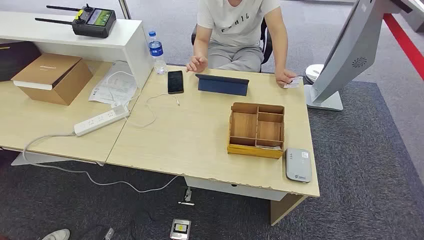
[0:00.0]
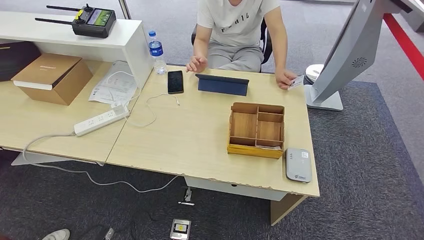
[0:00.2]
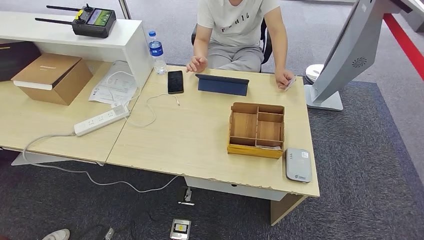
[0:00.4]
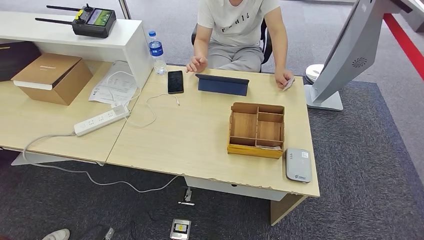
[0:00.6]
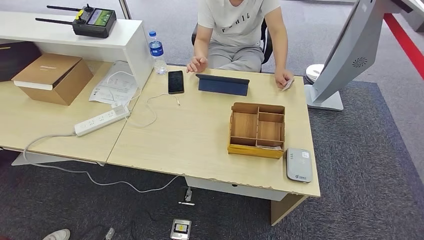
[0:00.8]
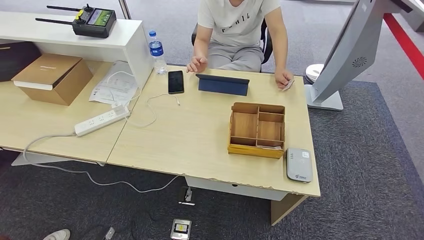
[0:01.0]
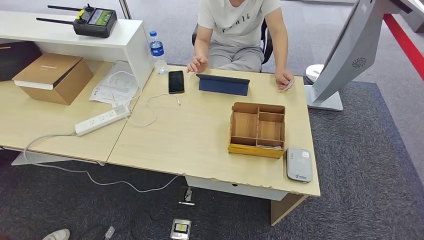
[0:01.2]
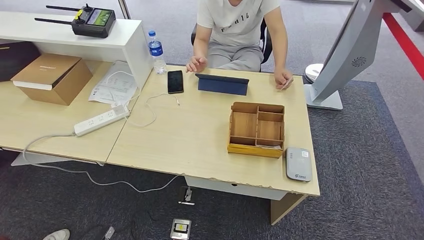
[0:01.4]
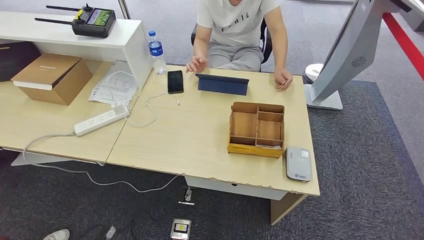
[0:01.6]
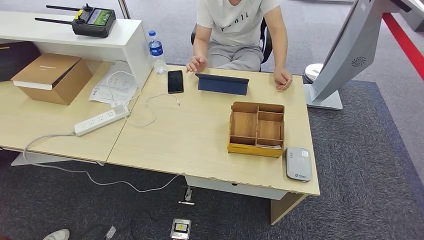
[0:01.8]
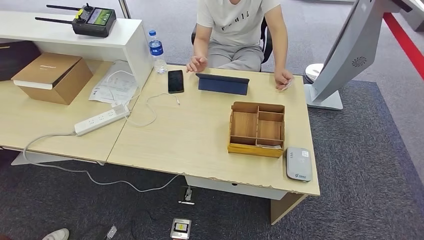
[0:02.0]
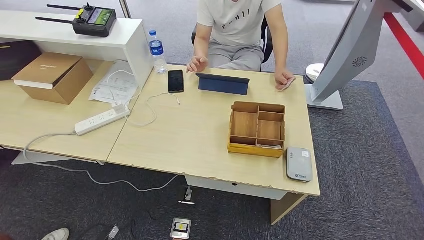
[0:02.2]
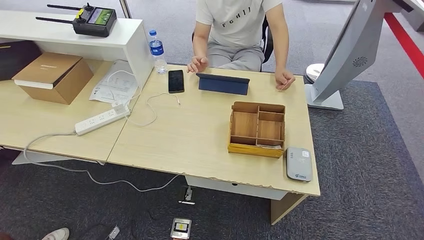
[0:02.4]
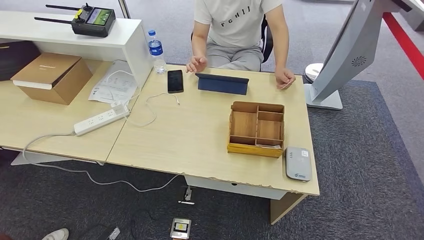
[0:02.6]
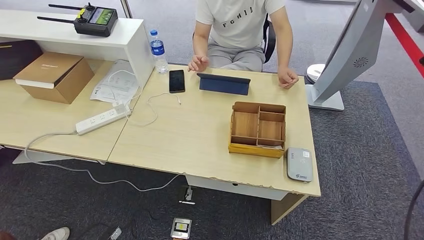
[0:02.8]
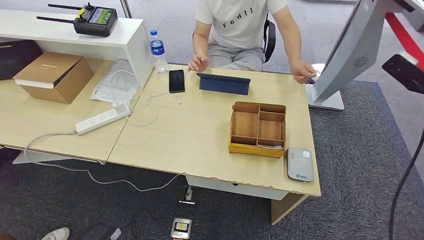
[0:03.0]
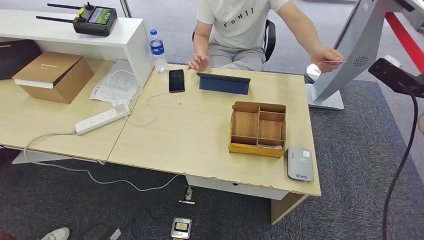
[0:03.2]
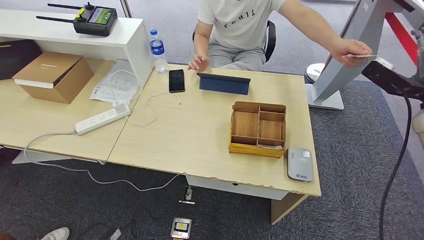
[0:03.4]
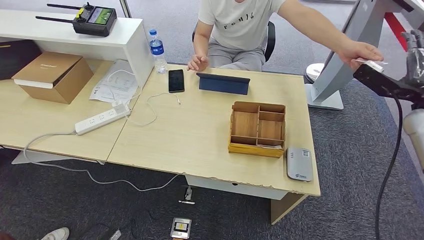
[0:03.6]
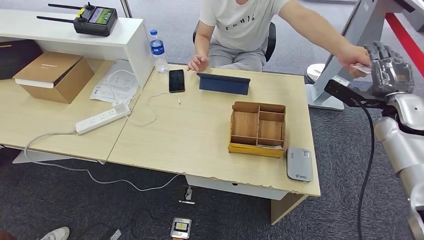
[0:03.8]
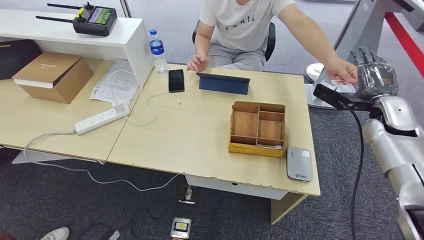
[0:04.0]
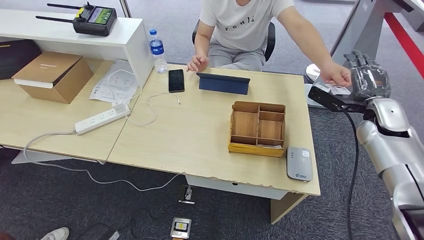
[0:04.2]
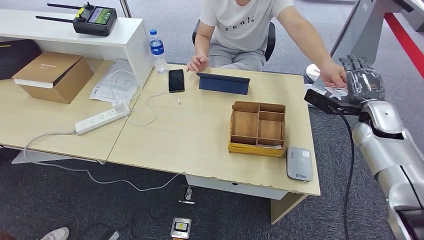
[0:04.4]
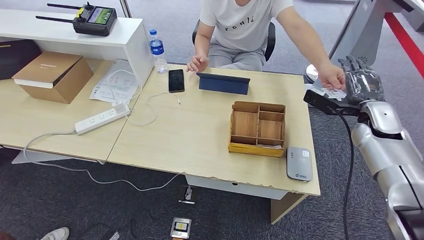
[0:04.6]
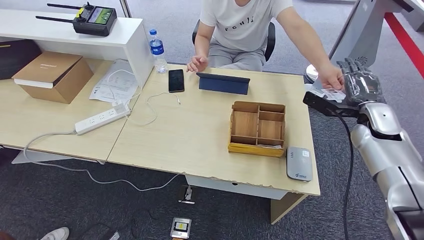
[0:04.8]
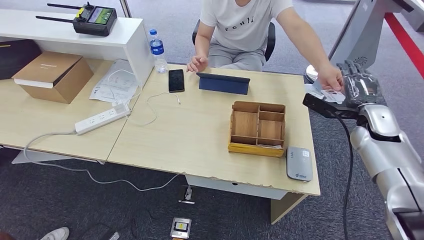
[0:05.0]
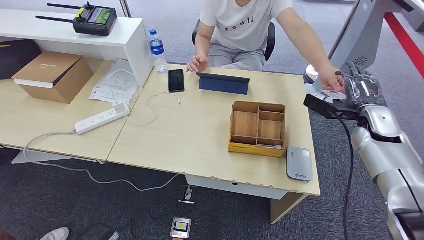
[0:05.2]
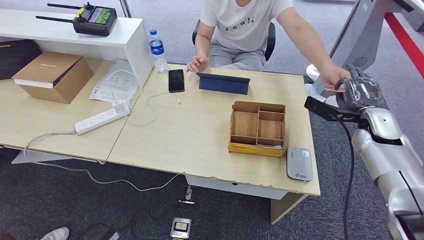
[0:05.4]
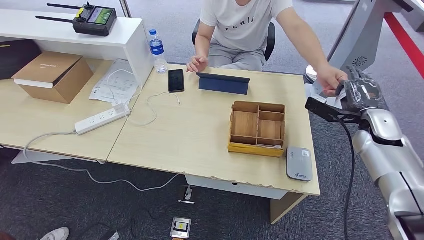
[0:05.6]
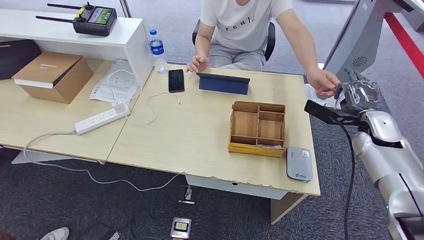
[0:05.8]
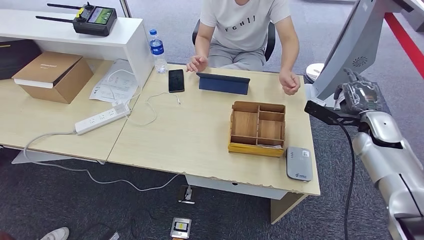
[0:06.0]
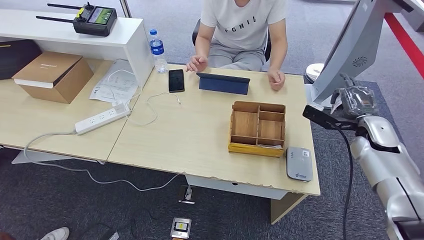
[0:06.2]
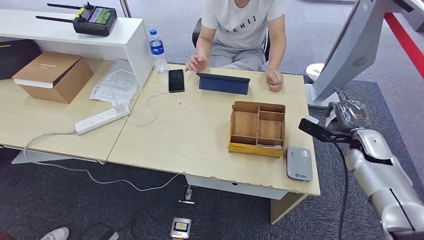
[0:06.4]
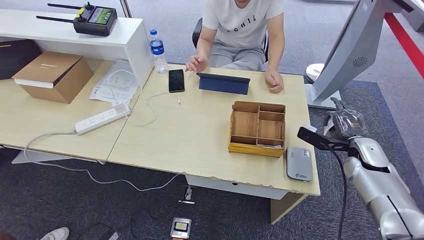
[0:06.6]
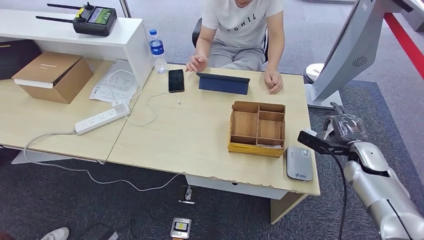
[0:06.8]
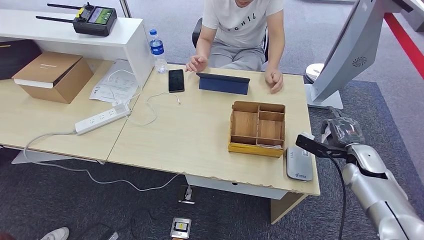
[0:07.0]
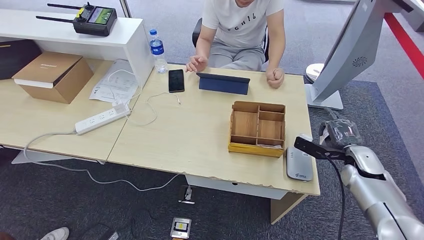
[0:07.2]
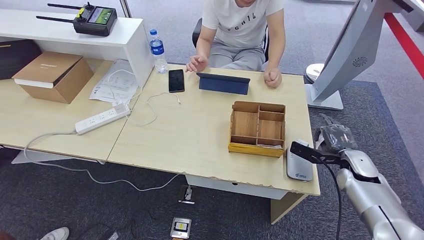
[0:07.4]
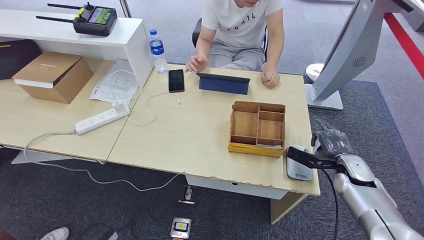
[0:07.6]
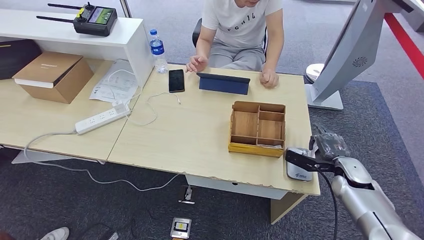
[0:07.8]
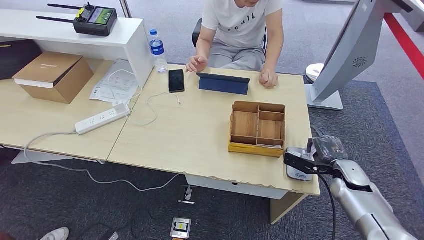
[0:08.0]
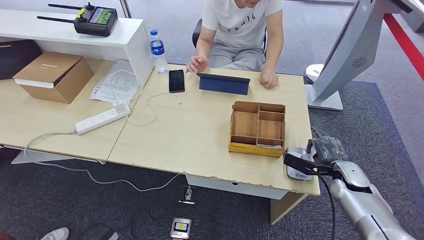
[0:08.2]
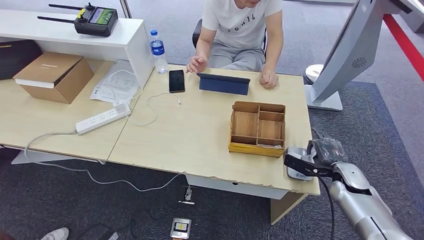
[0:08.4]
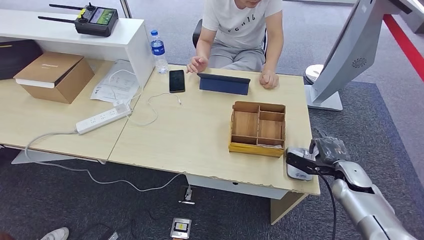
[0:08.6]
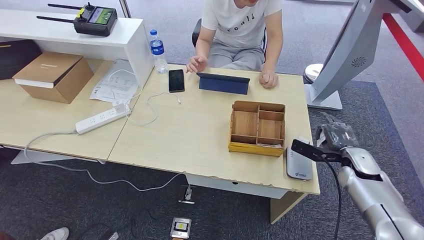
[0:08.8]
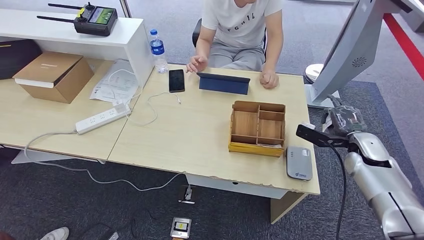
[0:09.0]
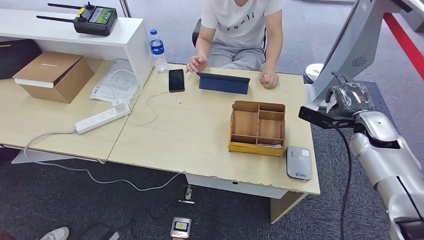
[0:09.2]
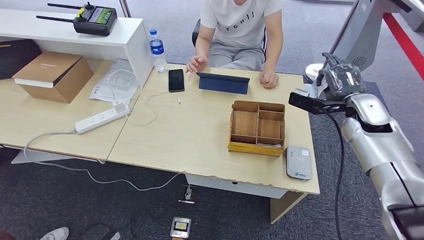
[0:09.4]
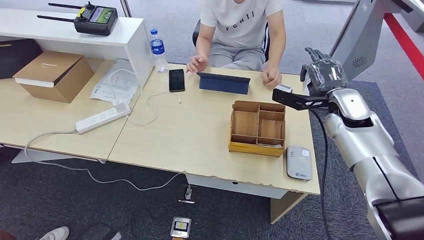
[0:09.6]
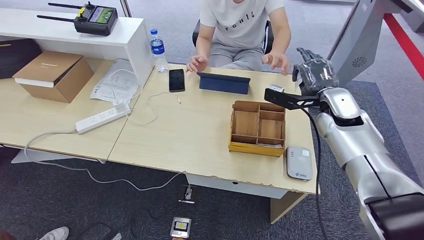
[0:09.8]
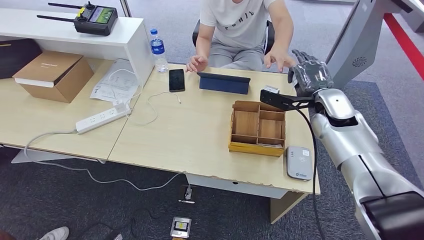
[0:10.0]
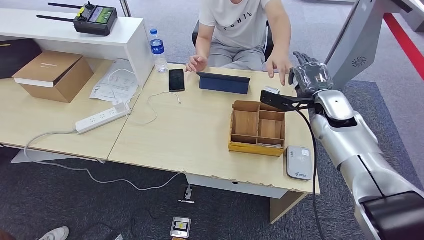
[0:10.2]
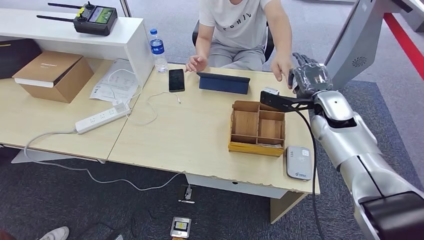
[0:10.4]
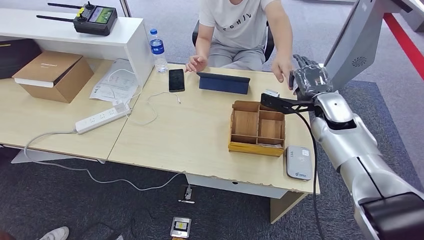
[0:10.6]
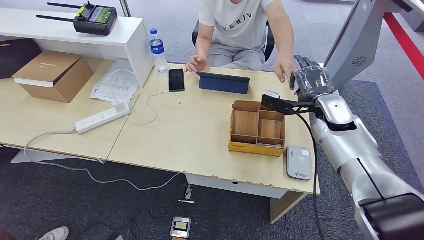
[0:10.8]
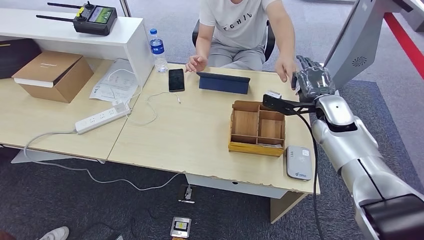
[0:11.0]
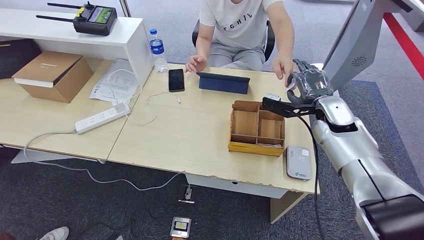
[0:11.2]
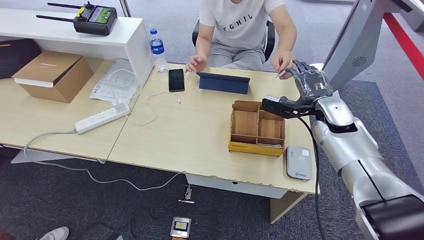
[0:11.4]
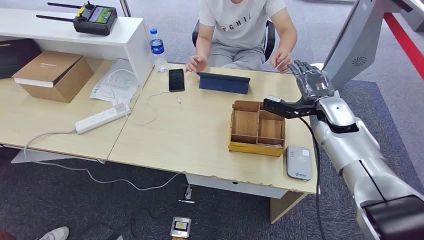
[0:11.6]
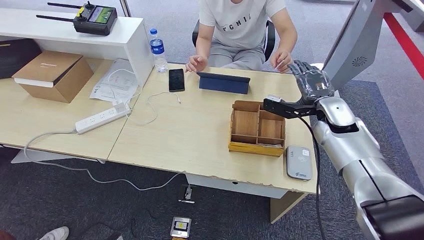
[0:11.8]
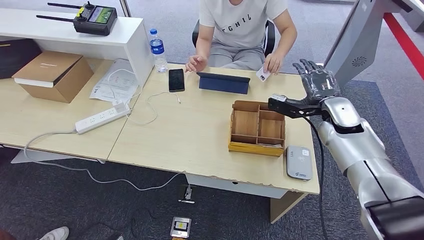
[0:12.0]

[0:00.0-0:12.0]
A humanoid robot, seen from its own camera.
Step, 0:00.0 to 0:06.0: Take the ID card from the person's hand.
Step, 0:06.2 to 0:09.2: Place the ID card on the card reader.
0:01.6 to 0:03.0: The right hand is displaced forward, upward and to the left by approximately 40 cm.
0:03.0 to 0:04.4: The right hand heads to the left and downward, covering some 15 cm.
0:04.4 to 0:06.0: The hands move only a little.
0:06.0 to 0:07.6: The right hand moves downward and backward, roughly 15 cm.
0:07.6 to 0:09.0: The right hand shifts about 5 cm upward.
0:09.0 to 0:10.4: The right hand moves to the left, upward and forward, approximately 15 cm.
0:10.4 to 0:12.0: The hands move only a little.

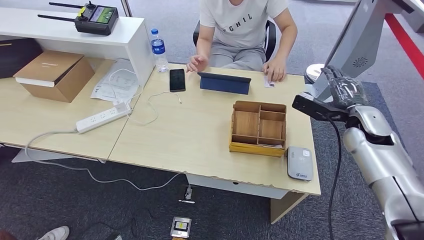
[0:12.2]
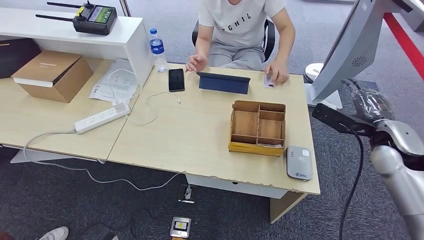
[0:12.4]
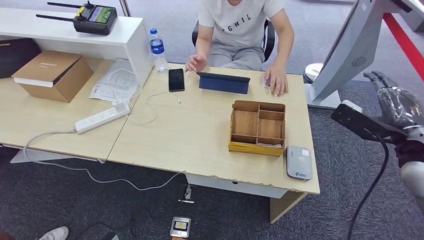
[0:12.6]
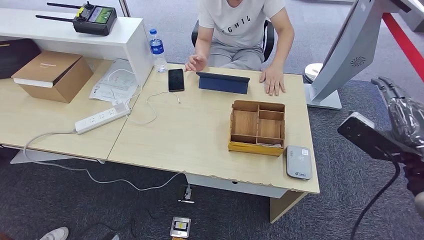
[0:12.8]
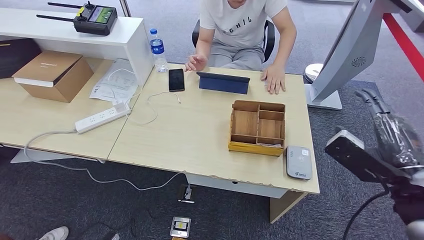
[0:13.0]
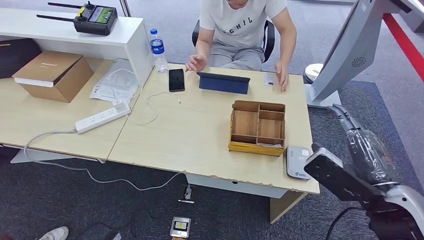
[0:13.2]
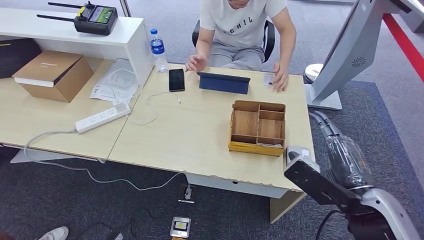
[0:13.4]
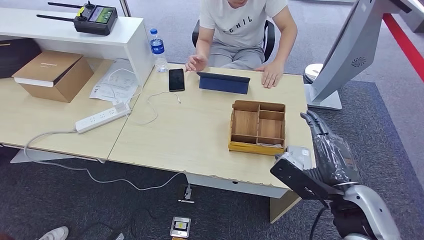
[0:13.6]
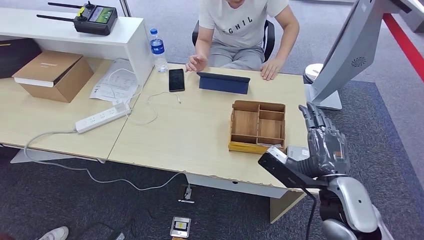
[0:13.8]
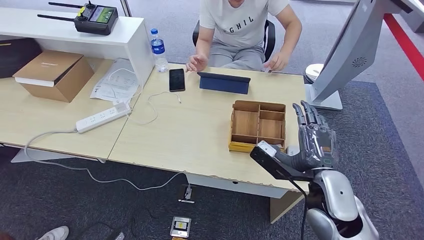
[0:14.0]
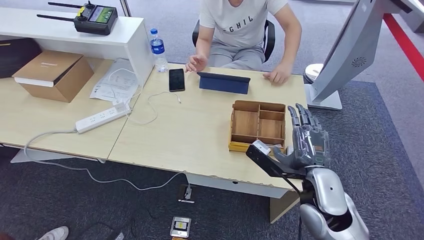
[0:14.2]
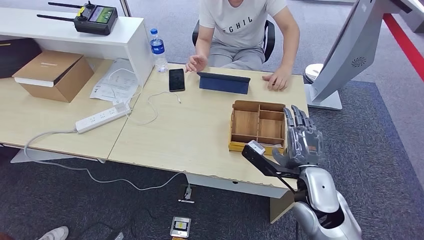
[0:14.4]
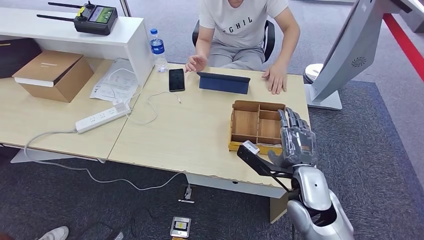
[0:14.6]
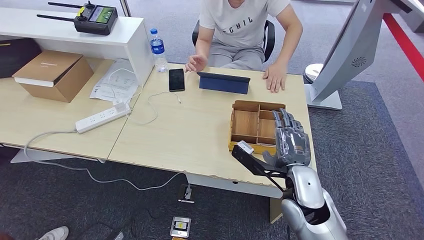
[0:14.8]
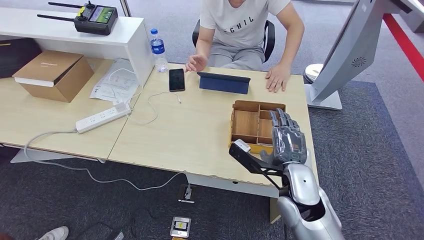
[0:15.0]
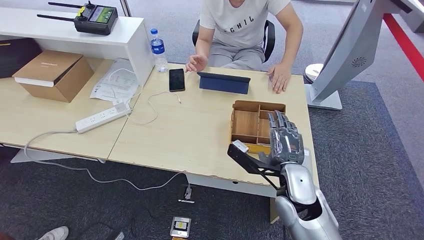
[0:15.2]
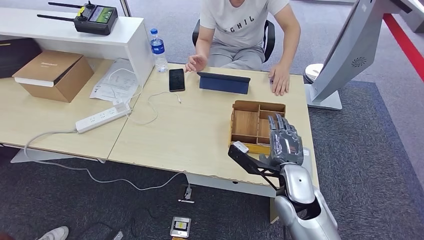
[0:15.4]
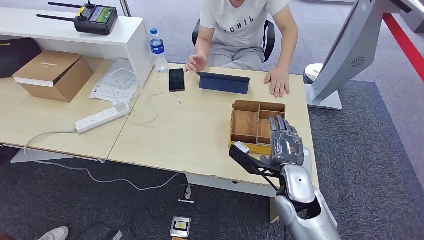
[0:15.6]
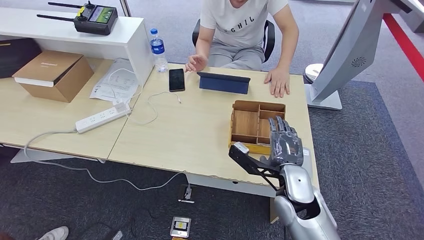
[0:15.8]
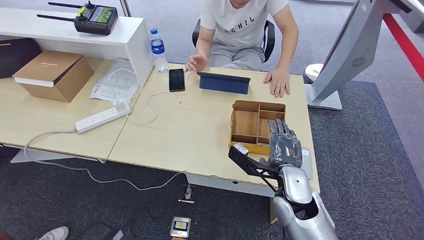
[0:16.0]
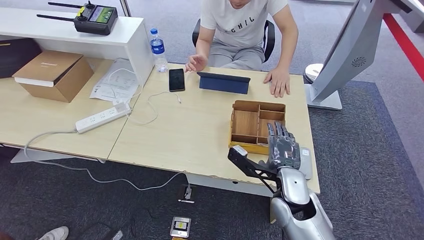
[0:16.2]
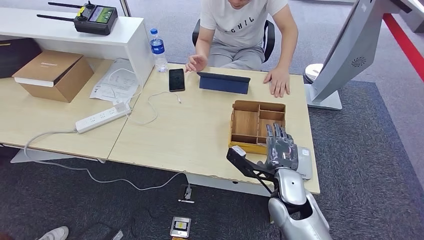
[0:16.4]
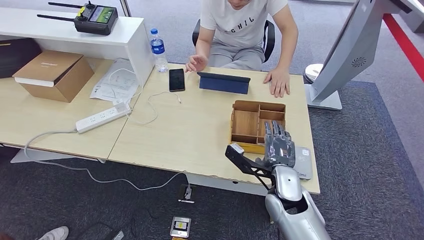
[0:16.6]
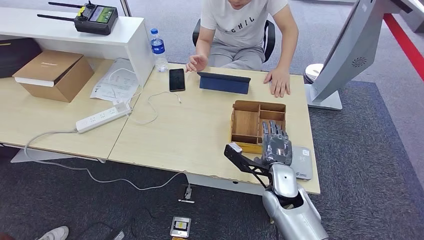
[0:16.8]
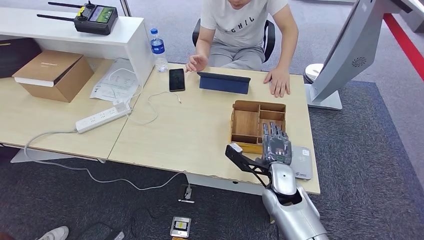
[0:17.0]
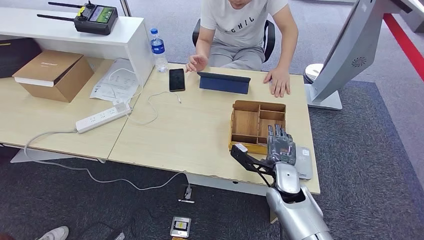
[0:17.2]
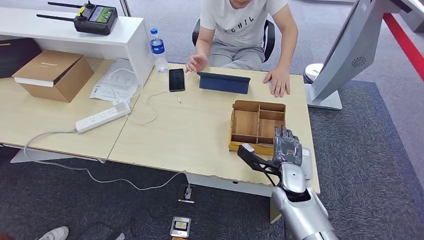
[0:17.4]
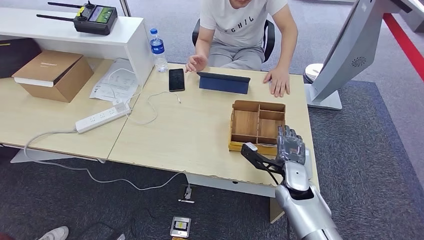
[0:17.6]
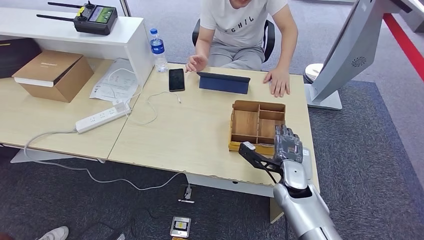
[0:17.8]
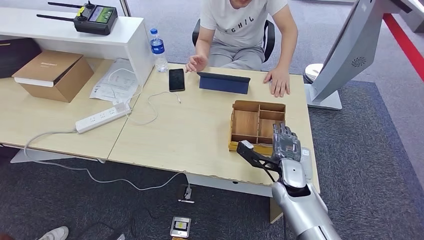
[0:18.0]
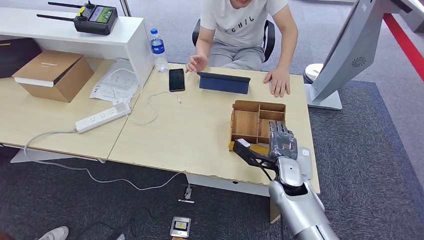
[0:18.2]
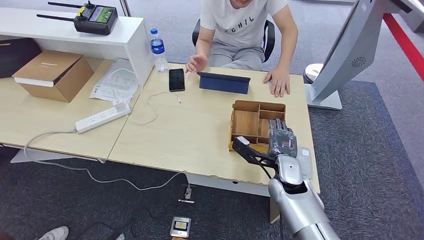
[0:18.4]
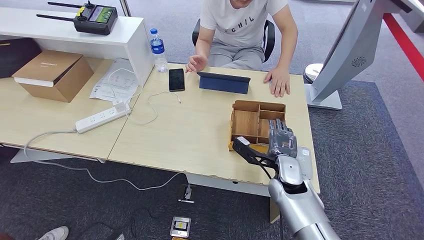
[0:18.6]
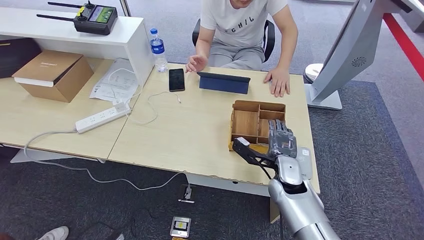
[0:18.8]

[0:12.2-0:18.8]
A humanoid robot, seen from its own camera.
0:12.2 to 0:13.8: The right hand goes some 20 cm backward and to the left.
0:13.8 to 0:15.4: The right hand travels to the left and downward by about 10 cm.
0:15.4 to 0:17.2: The right hand moves downward, some 5 cm.
0:17.2 to 0:18.8: The hands move only a little.
